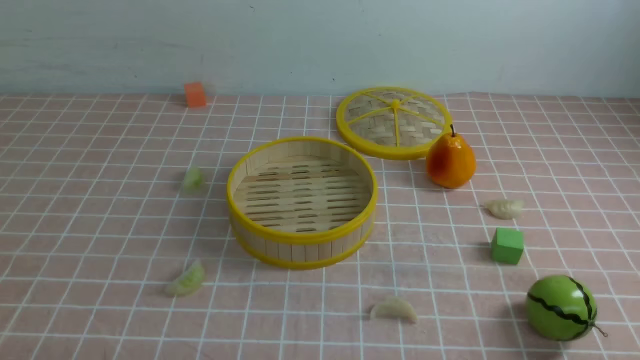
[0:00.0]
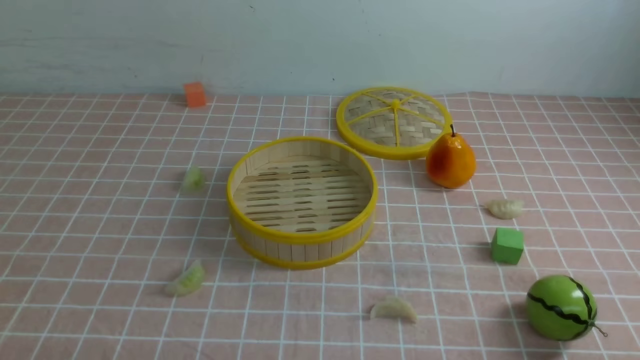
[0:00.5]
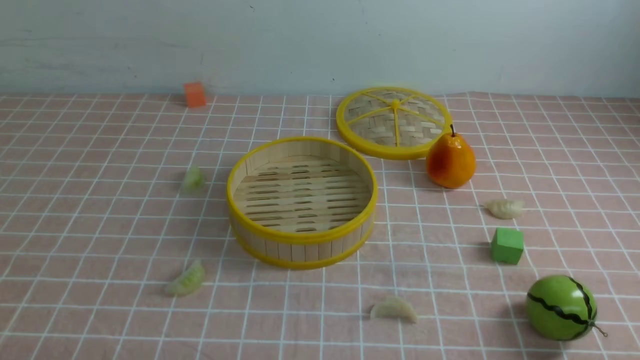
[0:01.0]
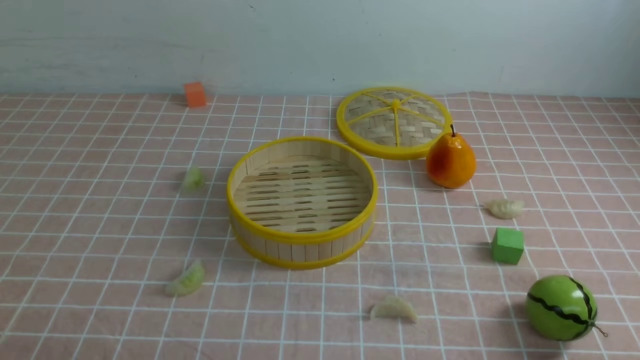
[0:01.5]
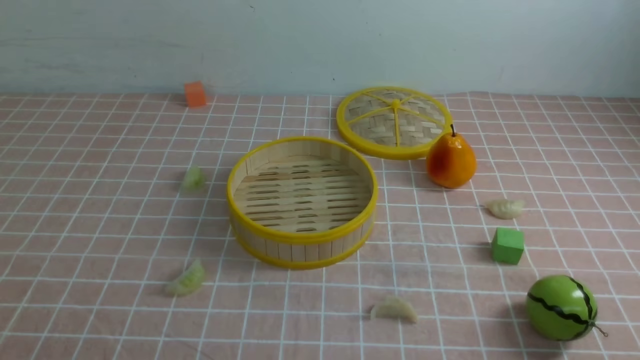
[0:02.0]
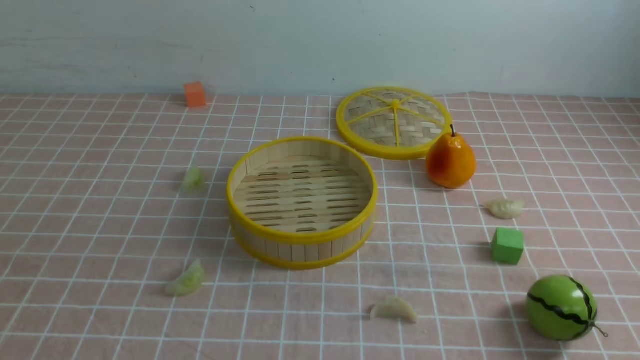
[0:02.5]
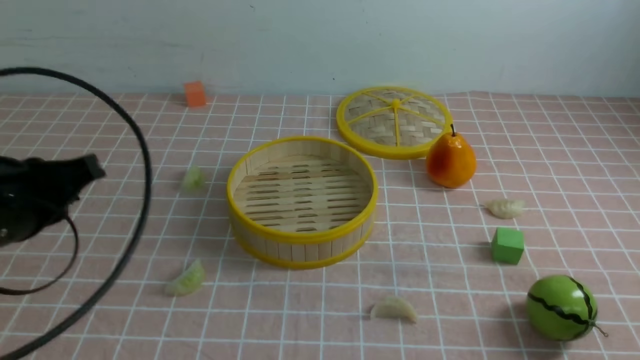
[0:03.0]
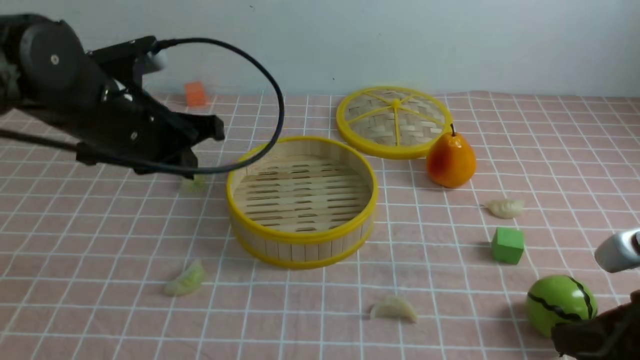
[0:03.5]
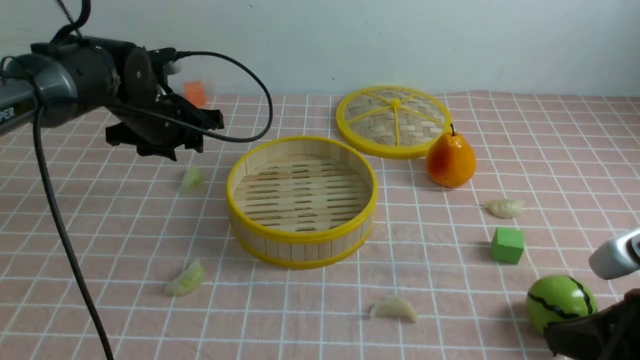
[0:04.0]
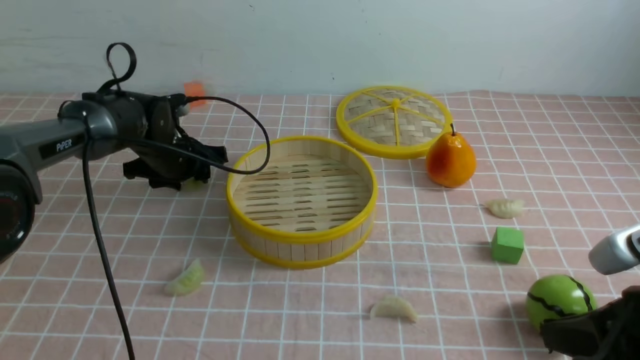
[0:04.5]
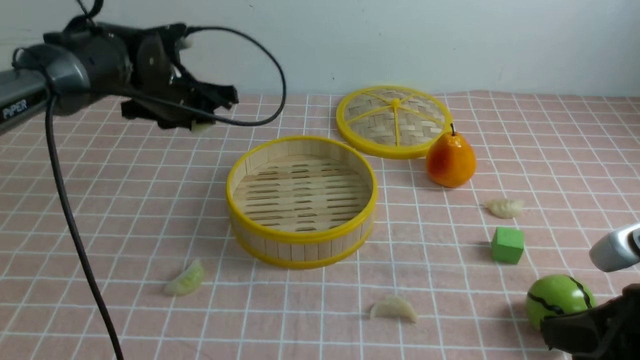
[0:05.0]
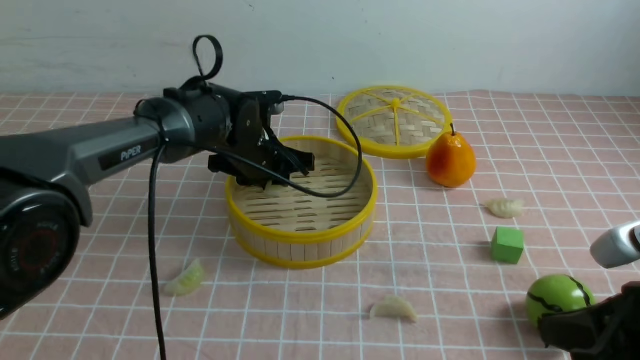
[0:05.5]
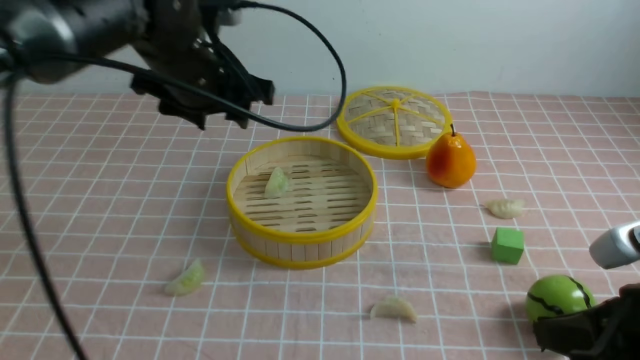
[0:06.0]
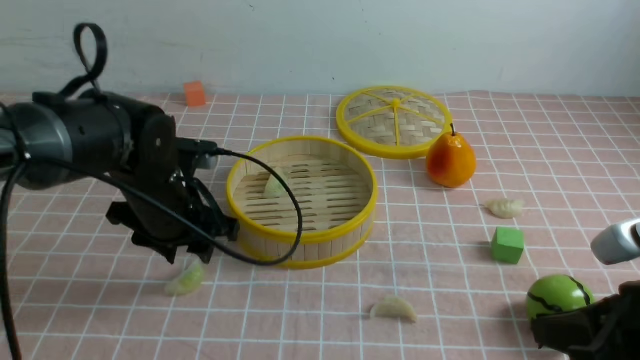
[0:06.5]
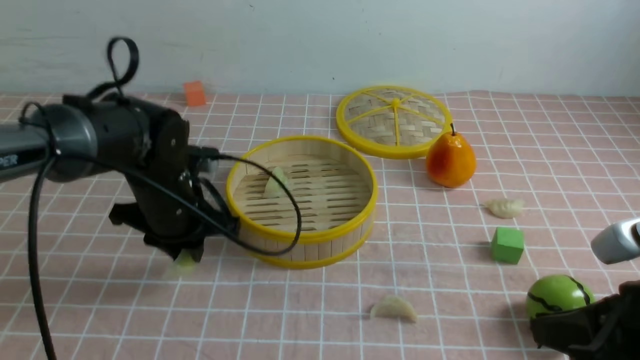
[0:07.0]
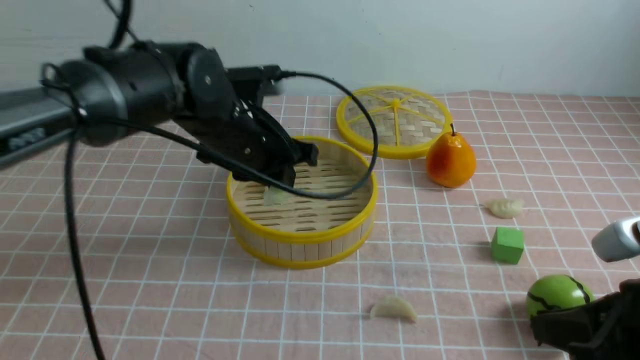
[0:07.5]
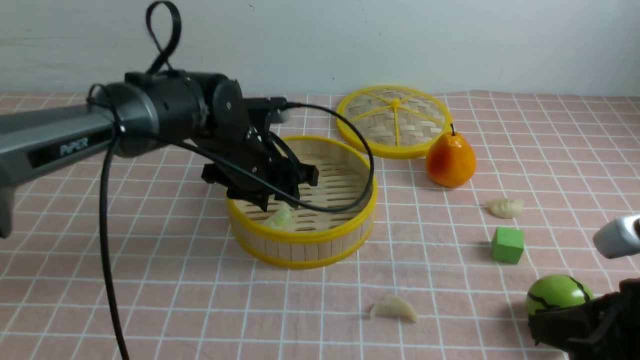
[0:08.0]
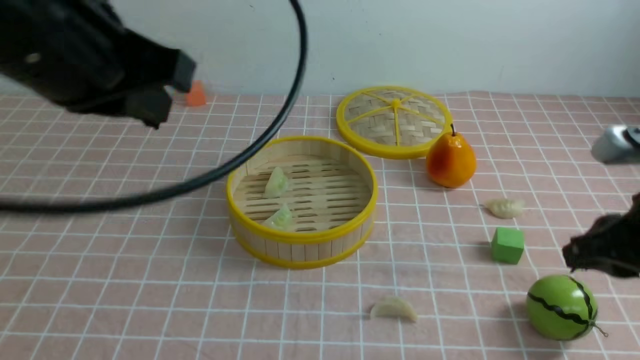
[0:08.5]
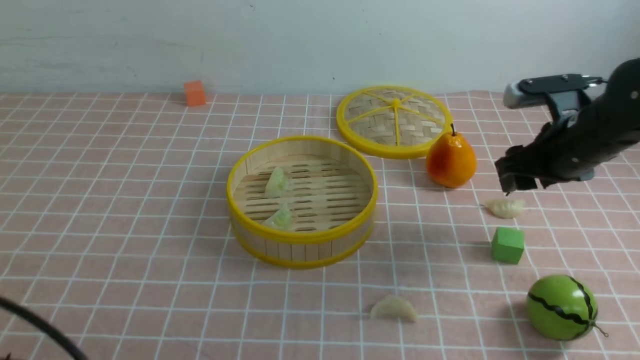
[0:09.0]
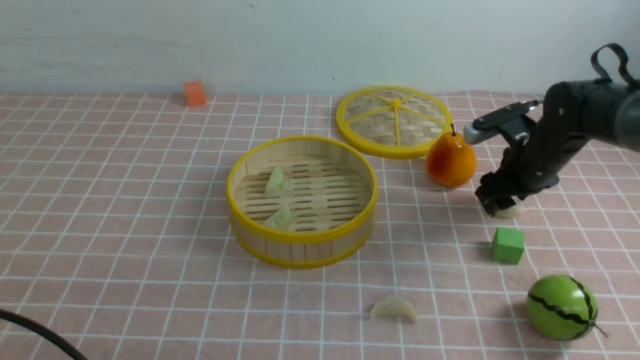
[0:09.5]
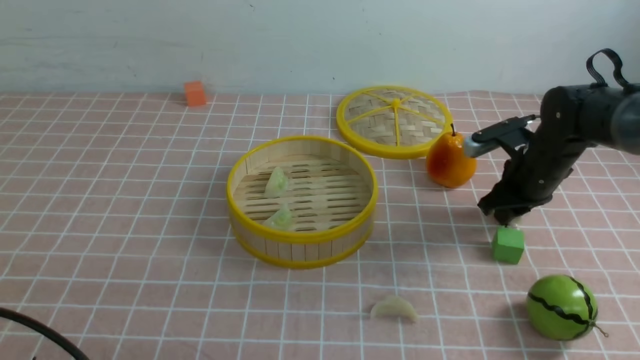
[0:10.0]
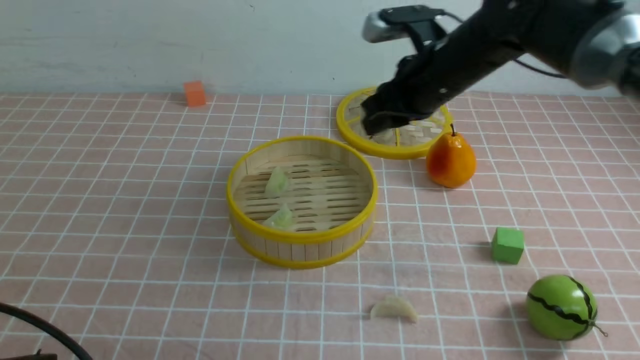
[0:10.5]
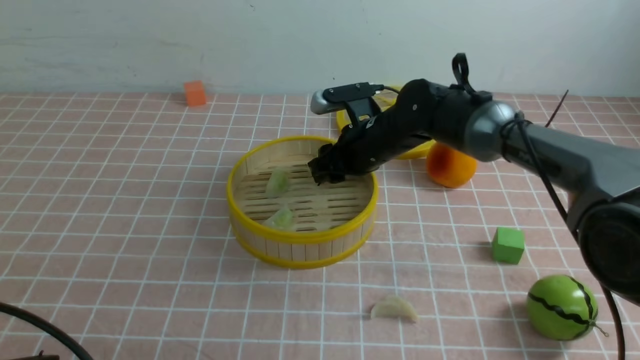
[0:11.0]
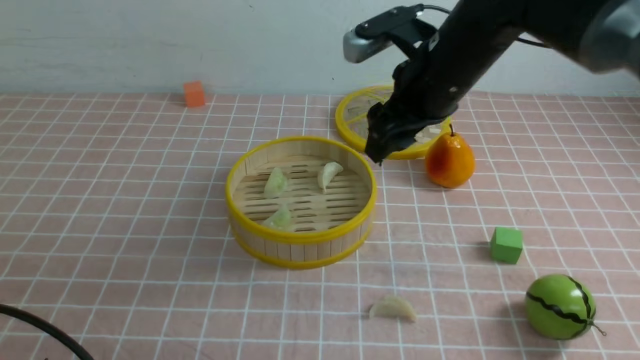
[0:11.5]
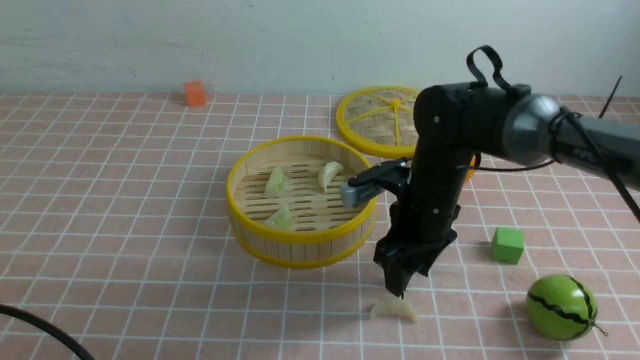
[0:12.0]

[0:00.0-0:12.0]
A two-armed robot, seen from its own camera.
Task of the whole recording: put the dumplings into the steamer on the table with the pink tablecloth.
Step, 0:00.0 to 0:04.5: use the left arm to grab a dumpling.
Step, 0:05.0 to 0:05.5: use the left arm to put the dumpling into the steamer.
Step, 0:06.0 to 0:07.0: use the left arm to grab a dumpling.
Step, 0:07.5 to 0:08.0: use the left arm to put the dumpling into the steamer.
Step, 0:08.5 to 0:10.0: use the right arm to grab a dumpling.
Step, 0:10.5 to 0:11.0: use the right arm to put the dumpling into the steamer.
0:02.0 to 0:04.0: The right gripper goes some 15 cm forward and to the left, and closes, while the left gripper is displaced forward by roughly 40 cm, and opens its fingers.
0:04.0 to 0:06.0: The left gripper goes up and down, some 15 cm each way, reversing 3 times.
0:08.0 to 0:10.0: The left gripper shifts roughly 35 cm backward and to the left, and closes its fingers, while the right gripper heads forward, covering about 30 cm, and opens and closes again.
0:10.0 to 0:12.0: The right gripper is displaced to the left and backward by approximately 20 cm, and opens its fingers.

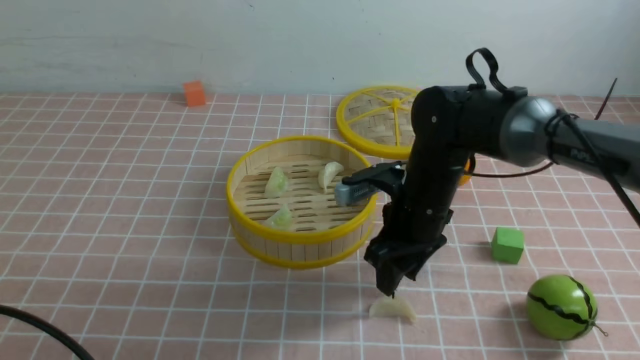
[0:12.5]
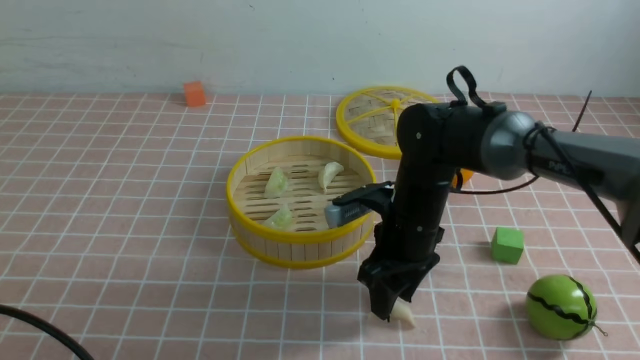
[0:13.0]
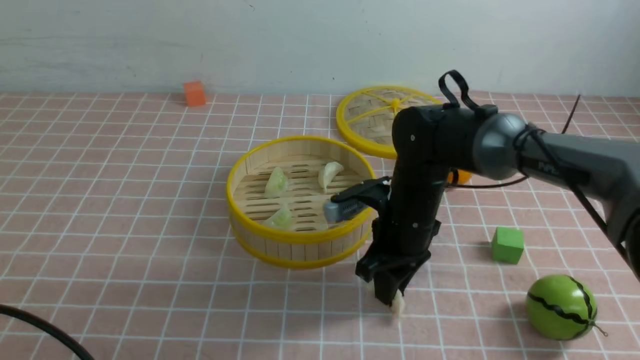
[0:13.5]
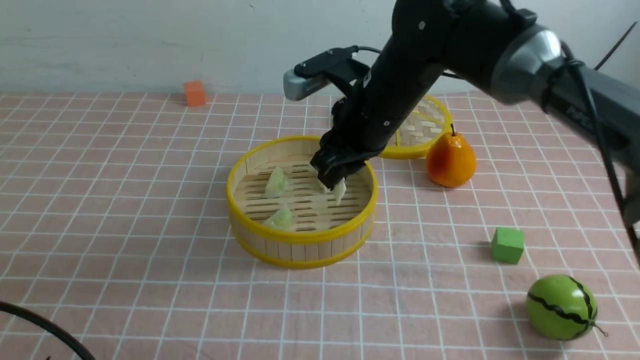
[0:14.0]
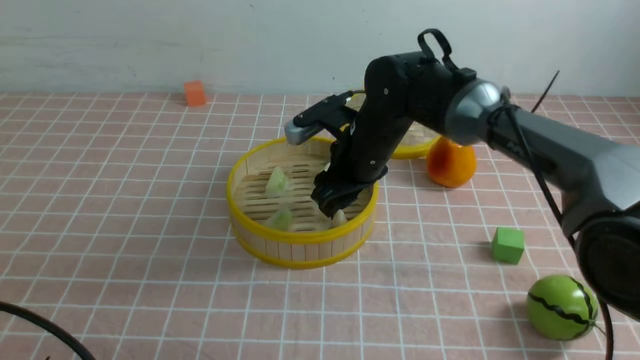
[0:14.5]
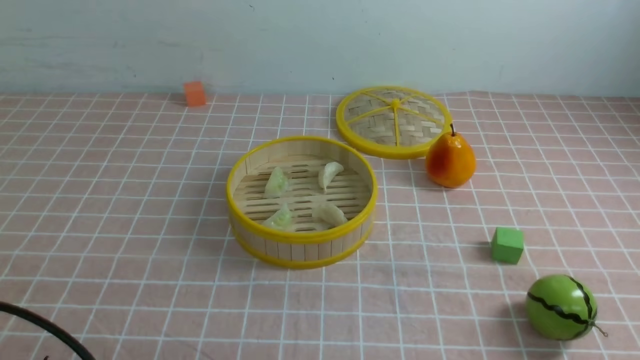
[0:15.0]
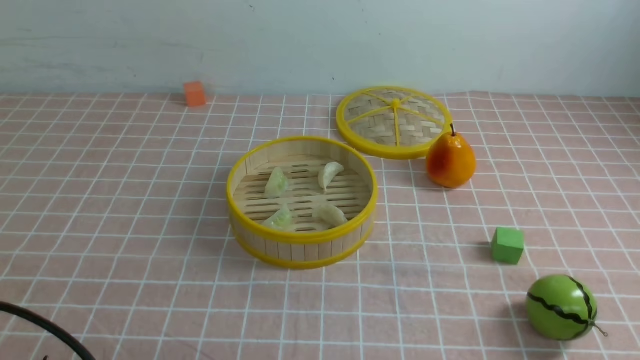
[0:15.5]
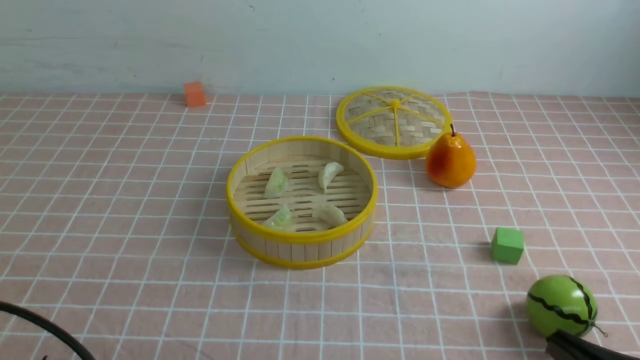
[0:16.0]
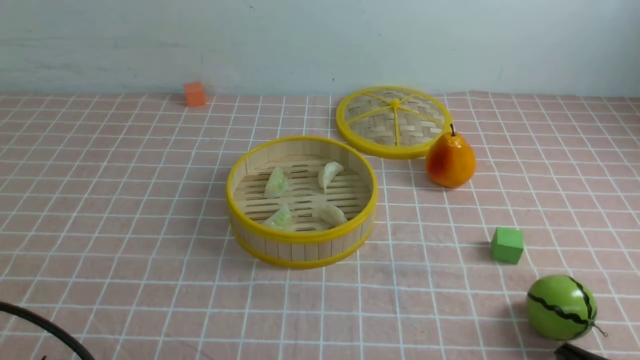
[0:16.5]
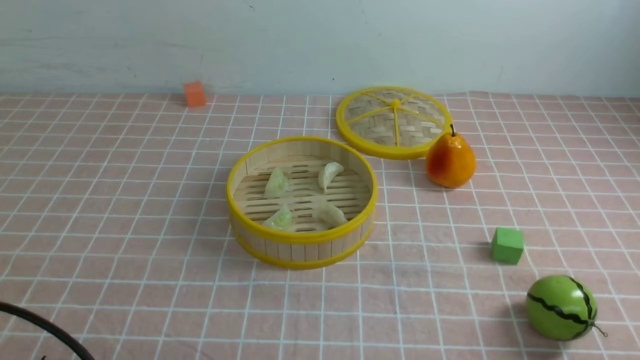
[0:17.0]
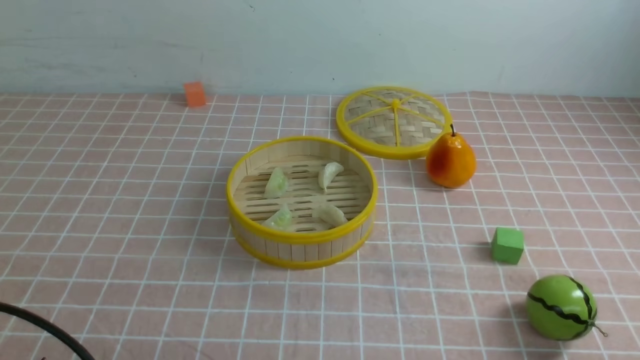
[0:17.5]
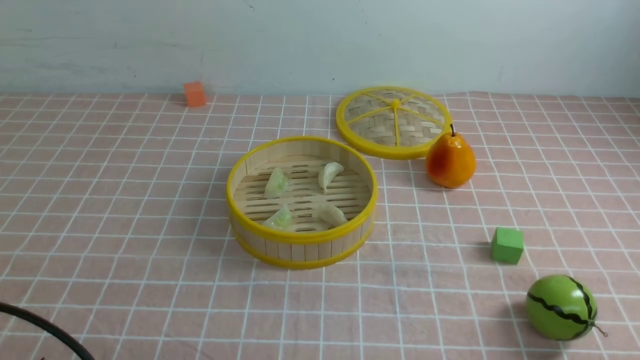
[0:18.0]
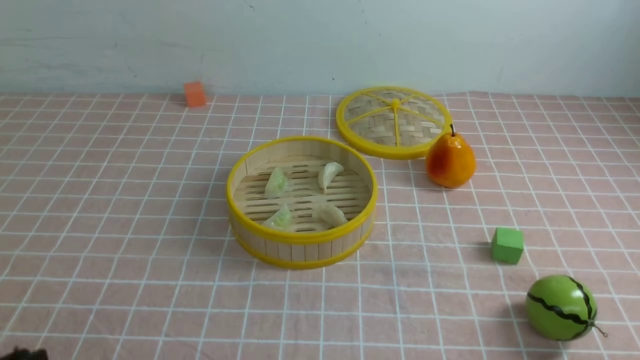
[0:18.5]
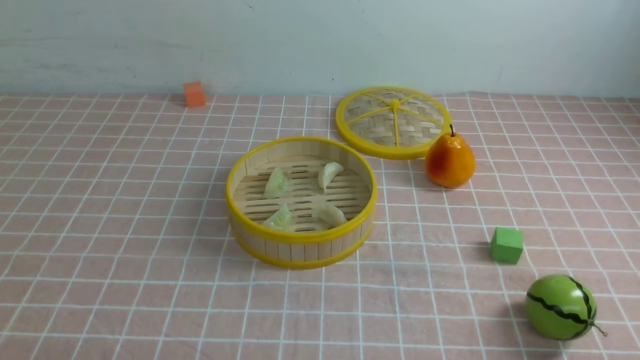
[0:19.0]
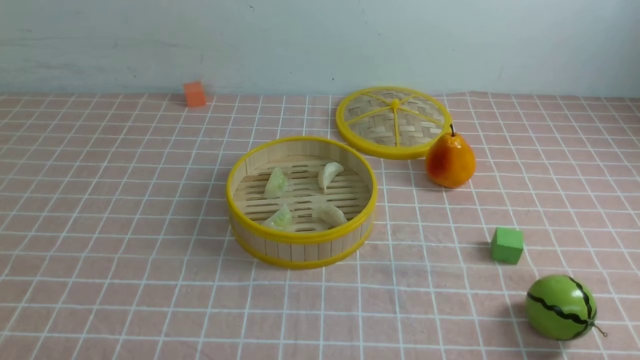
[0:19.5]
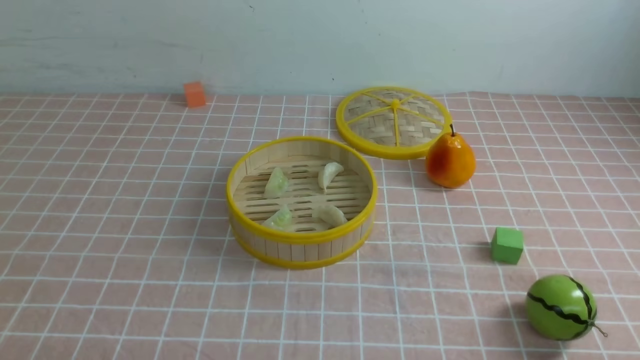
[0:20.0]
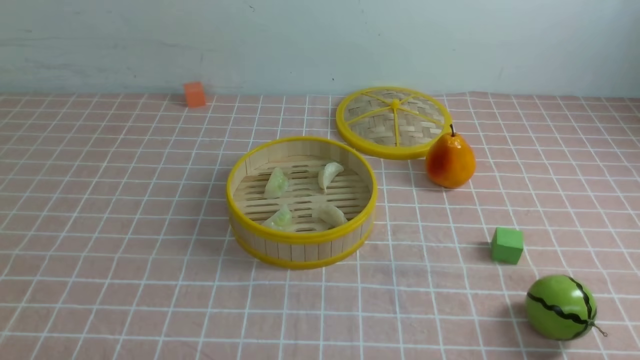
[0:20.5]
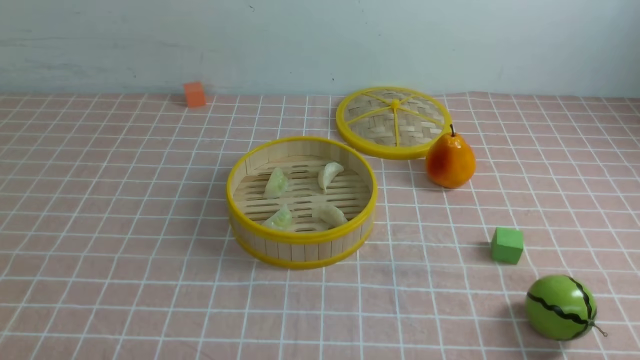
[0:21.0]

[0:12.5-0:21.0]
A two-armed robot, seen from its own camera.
Task of the whole recording: put the dumplings into the steamer on the table with the pink tablecloth.
Step, 0:14.0 to 0:14.5: use the right arm to put the dumpling into the steamer.
0:12.5 to 0:14.5: The right gripper goes about 10 cm upward and forward, and closes and opens again.
0:14.5 to 0:16.5: The right gripper moves backward and to the right, approximately 40 cm, and closes up.
